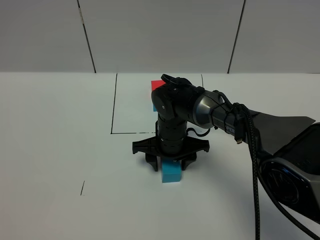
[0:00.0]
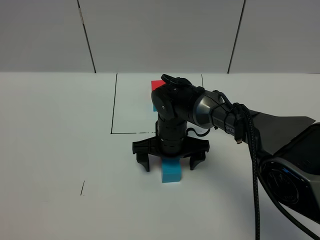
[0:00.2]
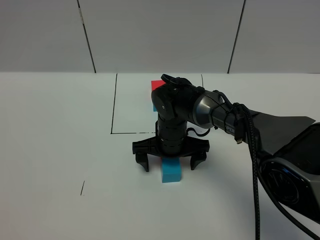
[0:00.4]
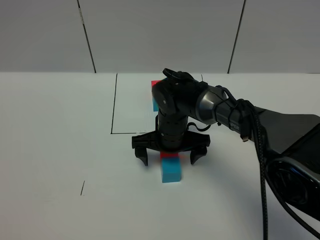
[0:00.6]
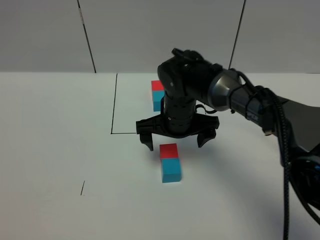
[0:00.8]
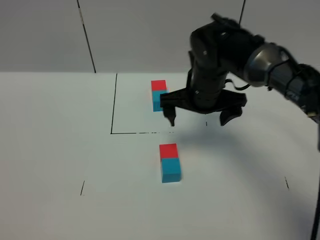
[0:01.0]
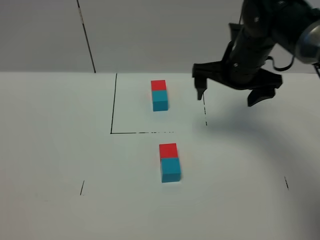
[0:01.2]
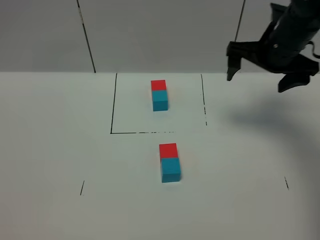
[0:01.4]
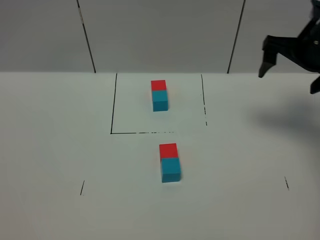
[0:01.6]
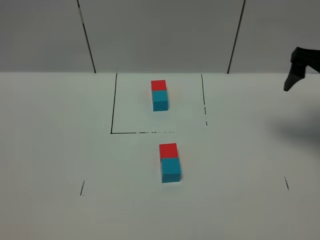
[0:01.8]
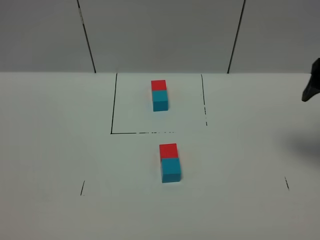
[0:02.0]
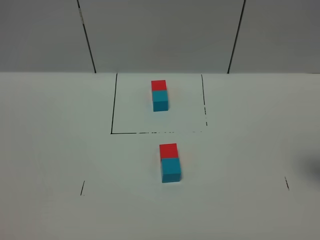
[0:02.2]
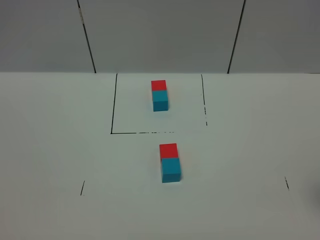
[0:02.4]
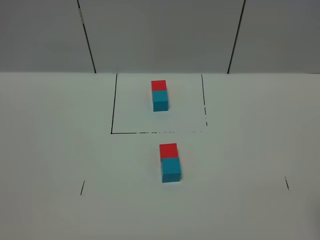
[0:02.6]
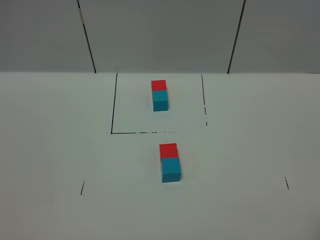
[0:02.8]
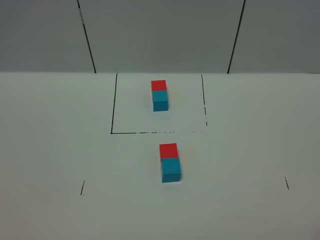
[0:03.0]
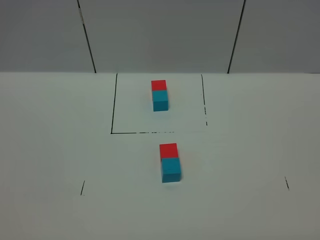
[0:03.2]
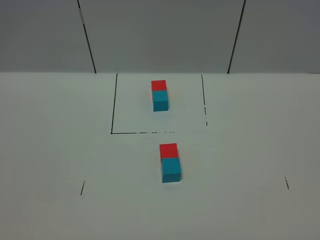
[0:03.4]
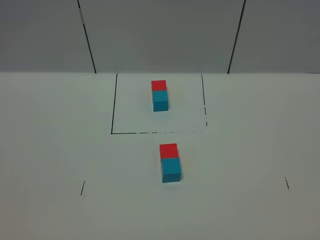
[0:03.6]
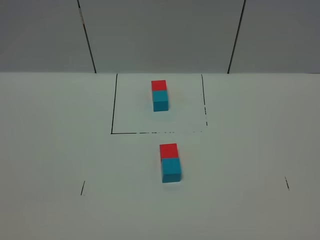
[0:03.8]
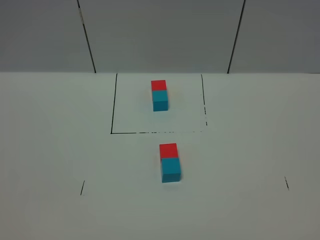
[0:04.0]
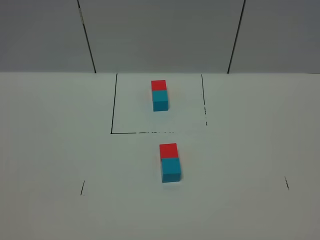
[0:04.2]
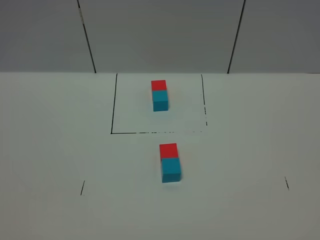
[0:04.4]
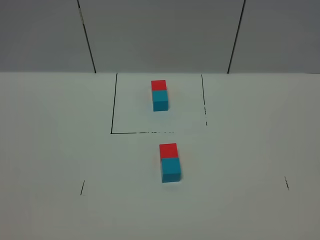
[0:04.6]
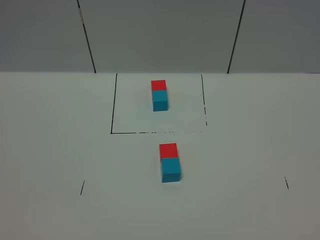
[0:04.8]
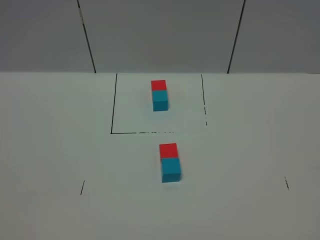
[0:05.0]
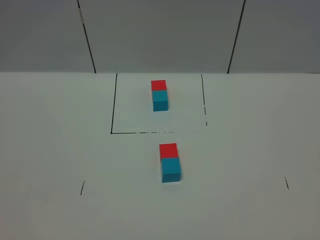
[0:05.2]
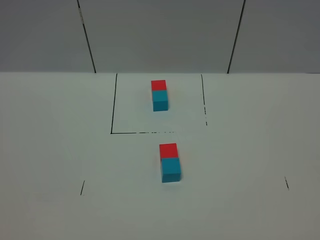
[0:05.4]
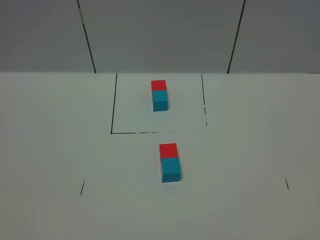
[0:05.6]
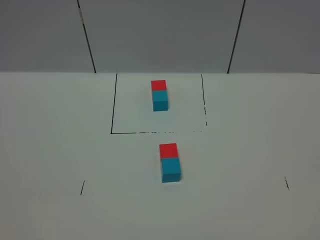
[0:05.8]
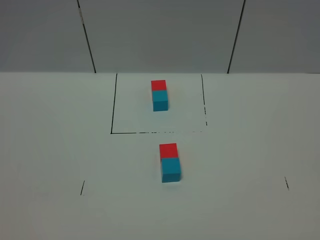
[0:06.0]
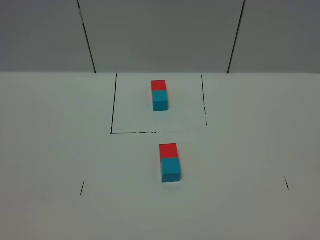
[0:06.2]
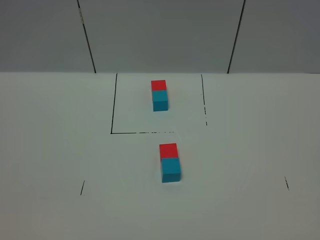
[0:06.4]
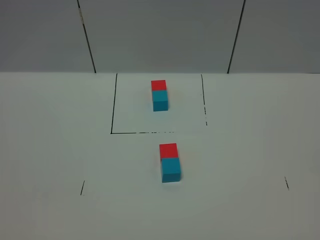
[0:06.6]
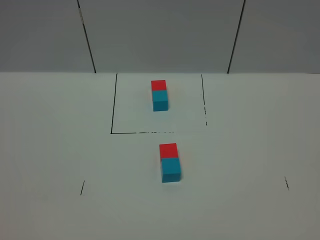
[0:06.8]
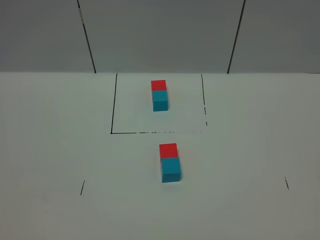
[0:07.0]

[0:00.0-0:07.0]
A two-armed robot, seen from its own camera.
Task of the whole recording: According to the building block template in front, assemble the scattered blocks together.
0:00.0 to 0:01.4: The right gripper heads to the right and upward, covering about 30 cm, and opens.
0:01.4 to 0:02.8: The right gripper travels backward by about 35 cm.
0:04.2 to 0:07.0: Both grippers stay put.

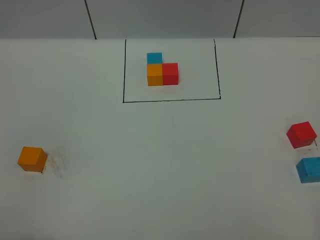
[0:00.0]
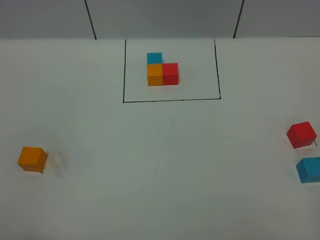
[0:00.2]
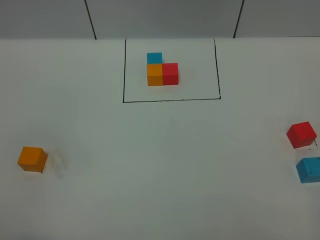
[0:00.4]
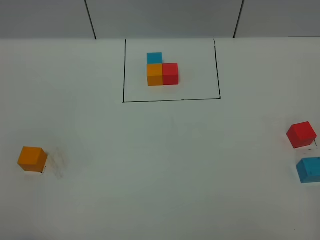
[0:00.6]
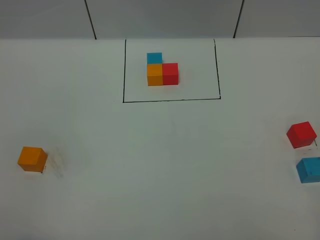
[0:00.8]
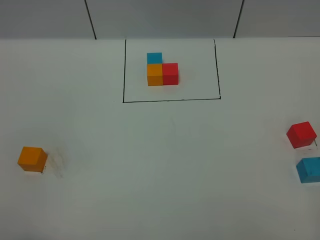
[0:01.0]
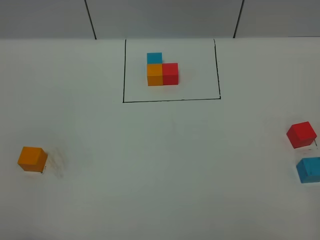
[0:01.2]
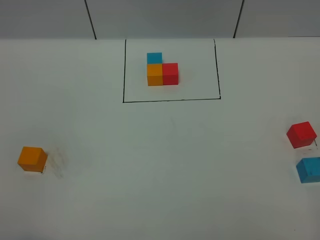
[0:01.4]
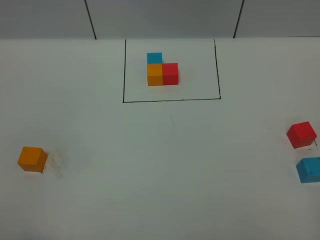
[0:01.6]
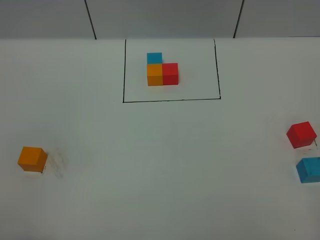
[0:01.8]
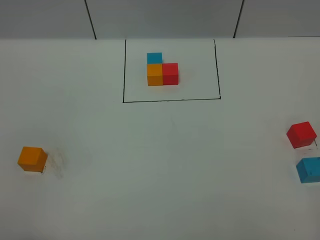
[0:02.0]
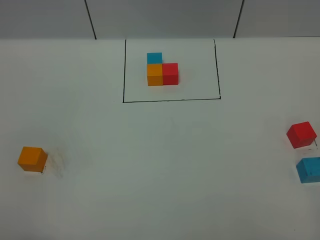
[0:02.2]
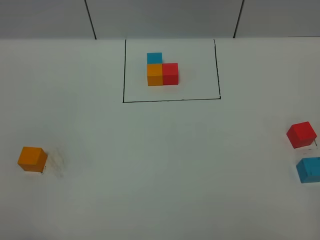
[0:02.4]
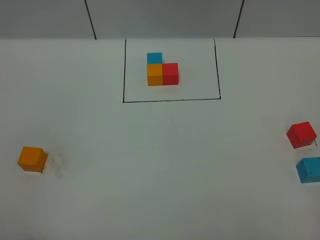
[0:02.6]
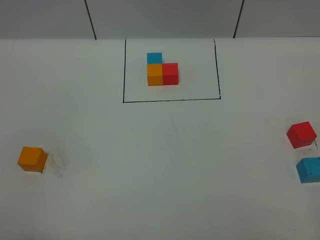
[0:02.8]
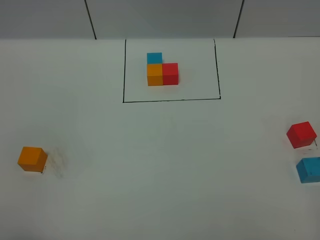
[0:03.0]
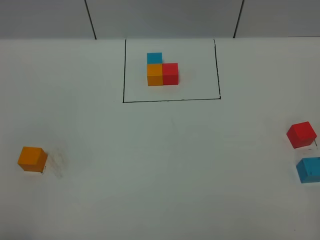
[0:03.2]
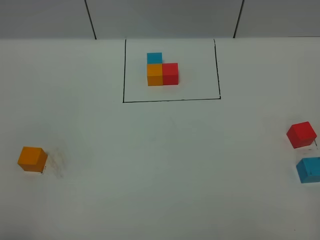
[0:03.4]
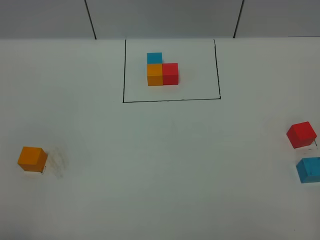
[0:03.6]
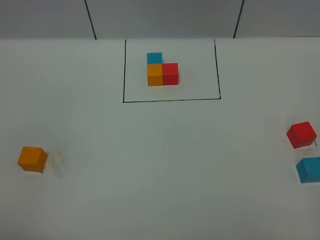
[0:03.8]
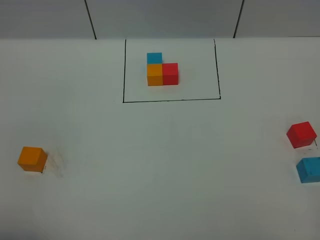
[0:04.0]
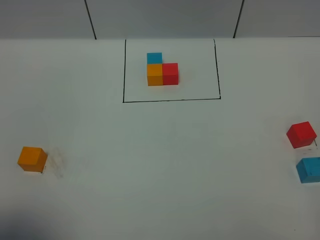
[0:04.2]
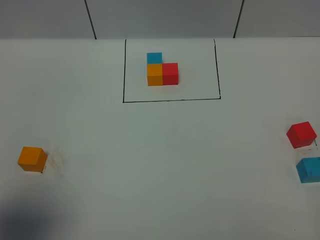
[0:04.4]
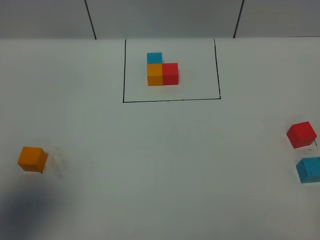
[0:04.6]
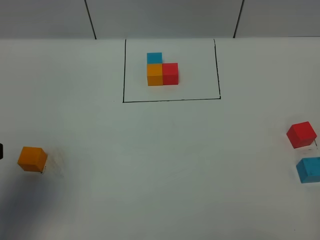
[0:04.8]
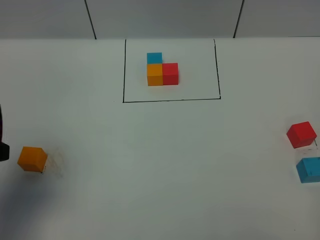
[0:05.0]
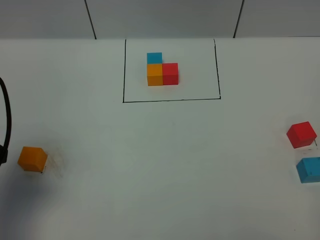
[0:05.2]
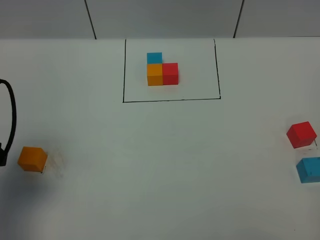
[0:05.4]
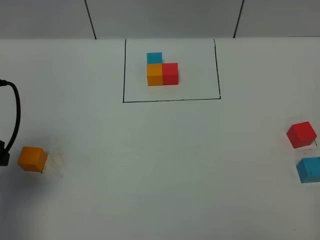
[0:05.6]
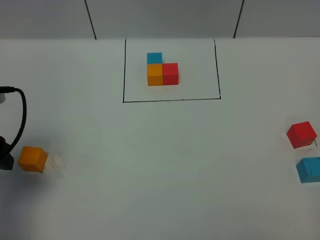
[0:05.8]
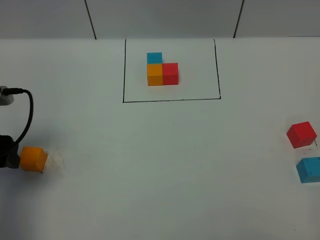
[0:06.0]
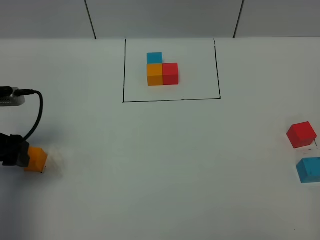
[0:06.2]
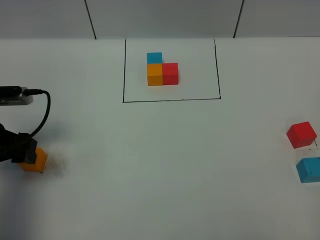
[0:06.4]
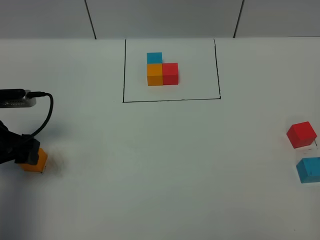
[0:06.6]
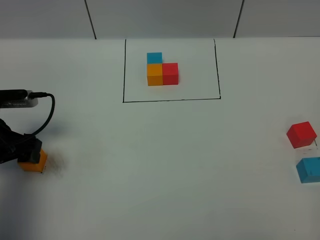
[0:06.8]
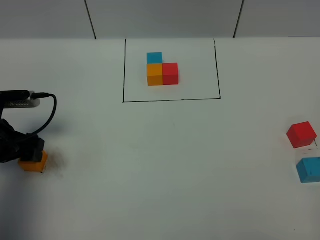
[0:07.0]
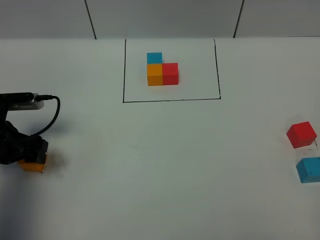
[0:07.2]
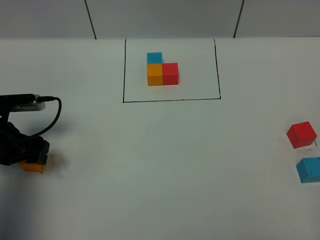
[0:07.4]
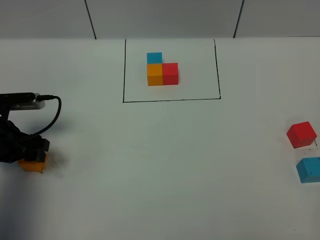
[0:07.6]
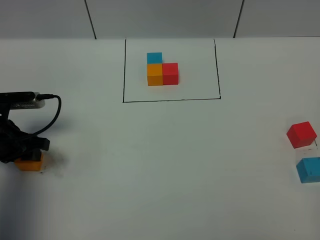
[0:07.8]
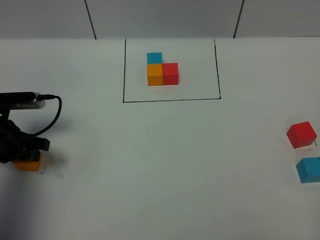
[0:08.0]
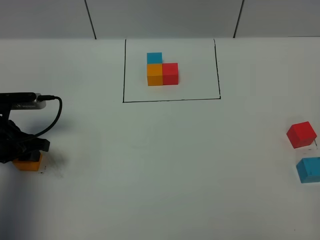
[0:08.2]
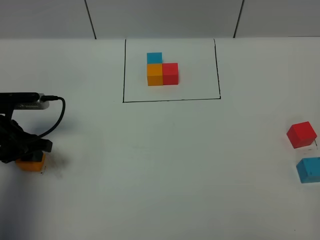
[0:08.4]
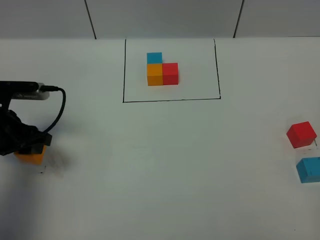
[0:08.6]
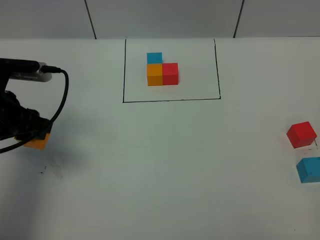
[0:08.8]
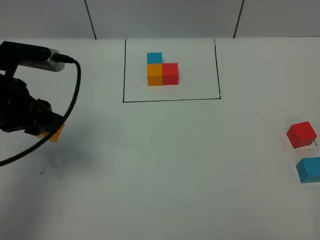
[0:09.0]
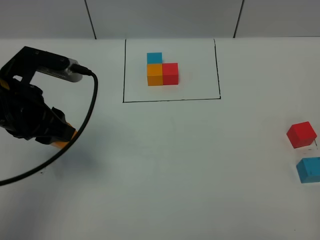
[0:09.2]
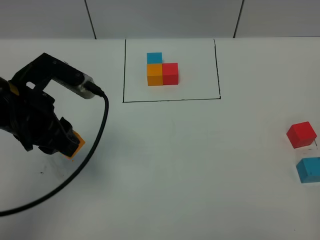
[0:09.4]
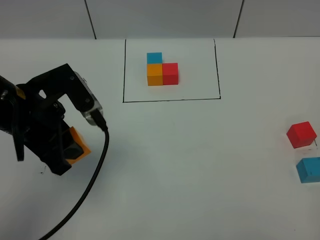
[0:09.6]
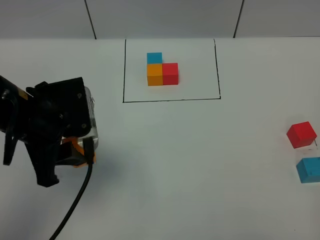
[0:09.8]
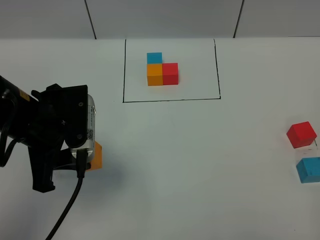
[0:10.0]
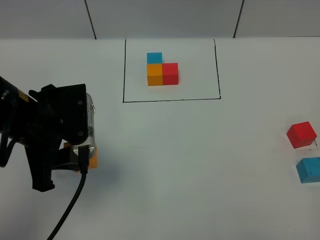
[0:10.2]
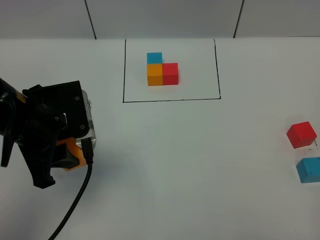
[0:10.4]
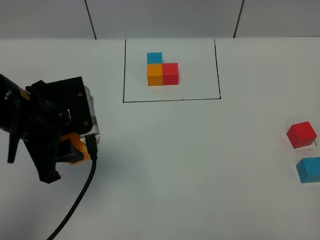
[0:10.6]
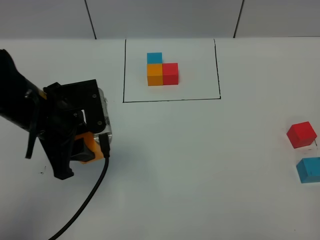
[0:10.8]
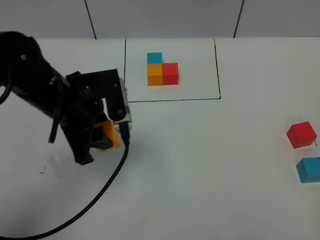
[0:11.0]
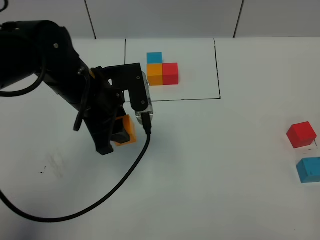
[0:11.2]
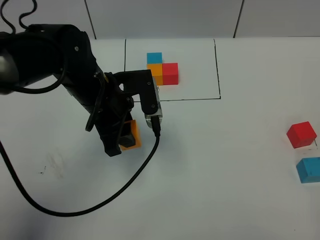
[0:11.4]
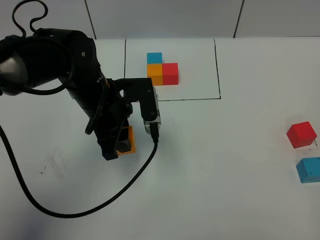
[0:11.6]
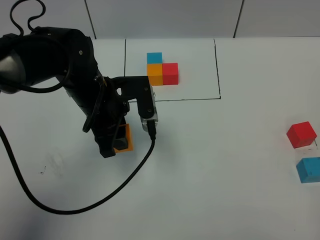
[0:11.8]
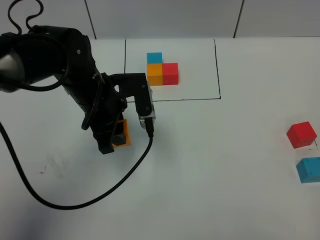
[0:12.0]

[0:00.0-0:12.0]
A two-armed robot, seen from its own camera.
Task of the whole recording: According to the building block template in front, assemble the scattered blocks together.
0:00.0 to 0:01.6: Both grippers stay about where they are.
0:03.0 to 0:04.4: The left gripper heads forward and upward, covering approximately 10 cm.
0:04.4 to 0:06.0: The left gripper goes about 20 cm forward and downward.
0:06.0 to 0:07.6: The left gripper moves downward, approximately 10 cm.
0:07.6 to 0:09.0: The left gripper shifts some 15 cm upward and to the right.
0:09.0 to 0:10.4: The left gripper ends up roughly 5 cm from where it was.
0:10.4 to 0:12.0: The left gripper heads forward, to the right and downward, covering approximately 15 cm.

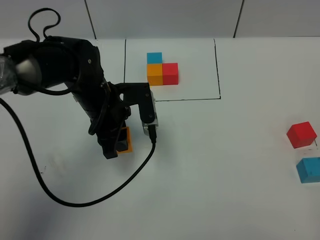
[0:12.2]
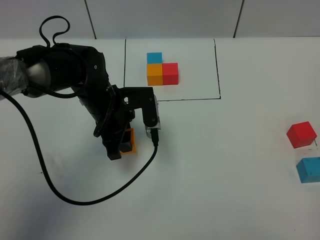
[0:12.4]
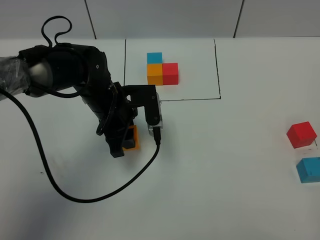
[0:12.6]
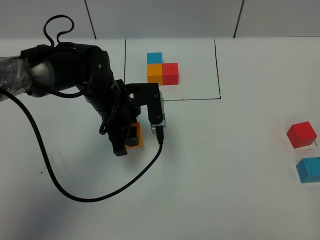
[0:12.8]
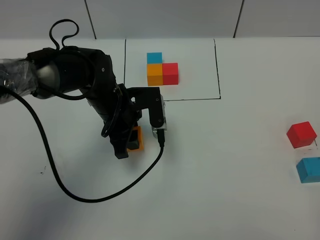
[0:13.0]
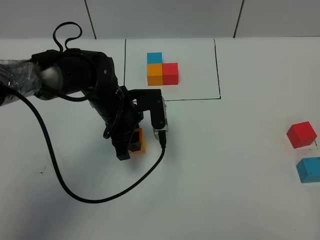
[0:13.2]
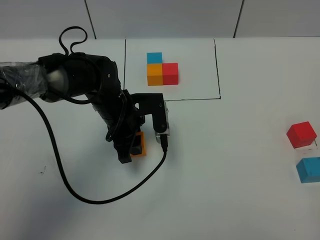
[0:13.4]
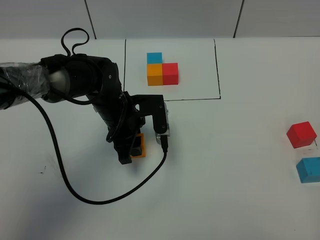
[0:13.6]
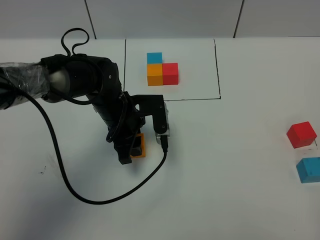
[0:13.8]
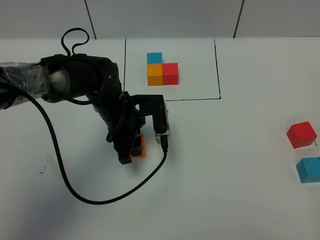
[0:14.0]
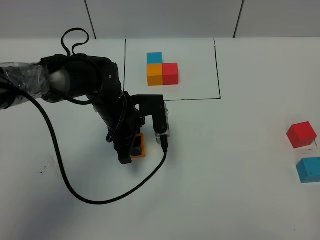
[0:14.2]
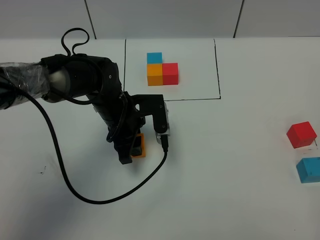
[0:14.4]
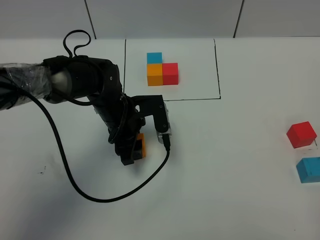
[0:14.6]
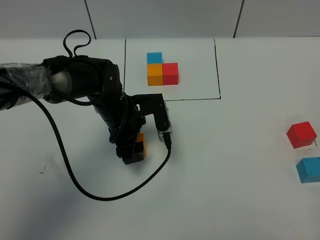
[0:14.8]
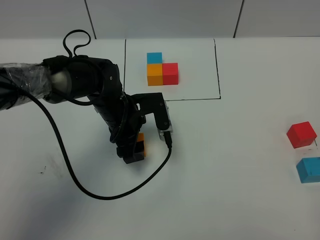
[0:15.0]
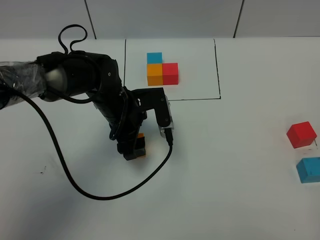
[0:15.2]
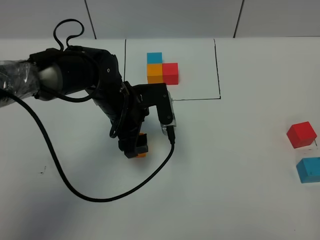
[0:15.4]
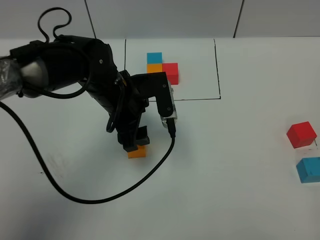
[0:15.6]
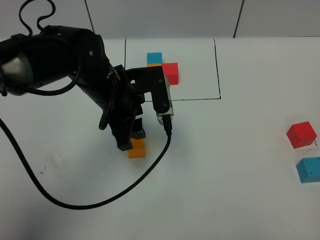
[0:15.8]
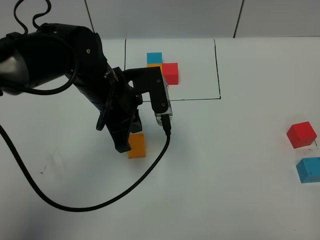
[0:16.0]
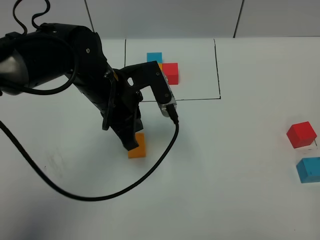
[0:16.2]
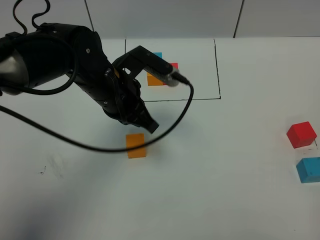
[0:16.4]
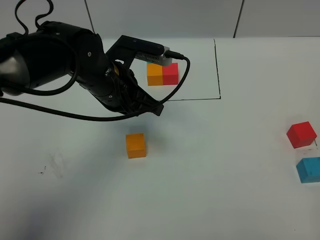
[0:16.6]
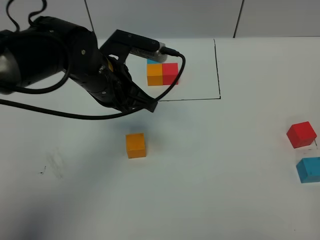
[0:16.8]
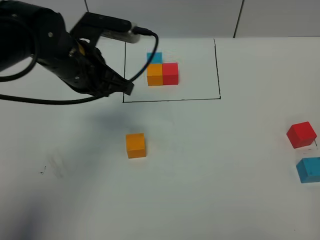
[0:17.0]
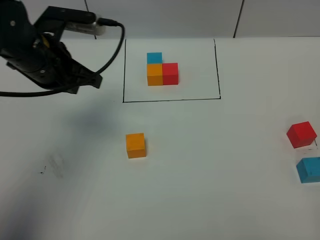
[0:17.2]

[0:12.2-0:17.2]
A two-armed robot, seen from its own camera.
Task of the whole recording: According to the building block template in front, assemble the scattered blocks together.
Step, 0:12.2 to 0:16.4: Put the orange cube in the center of the table.
0:12.2 to 0:13.8: There are only small adjustments of the grippers.
0:13.8 to 0:15.6: The left gripper shifts some 5 cm upward.
0:15.6 to 0:17.2: The left gripper shifts roughly 15 cm to the left and upward, and closes.
